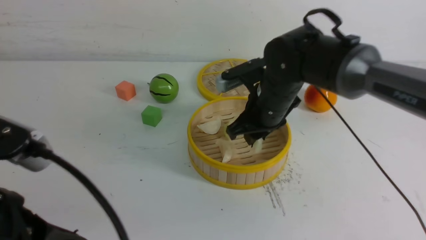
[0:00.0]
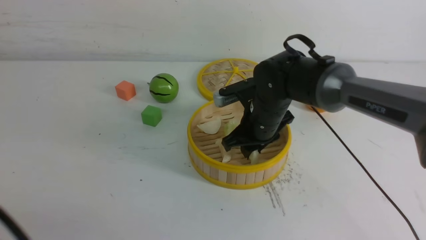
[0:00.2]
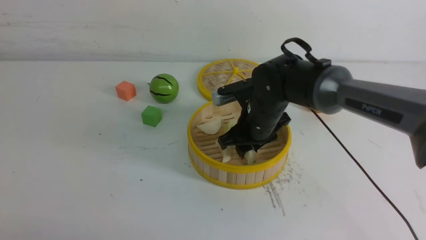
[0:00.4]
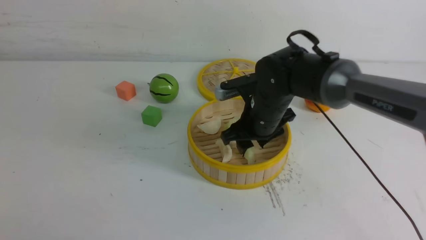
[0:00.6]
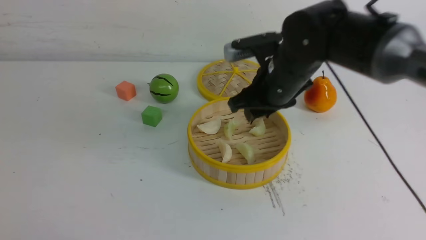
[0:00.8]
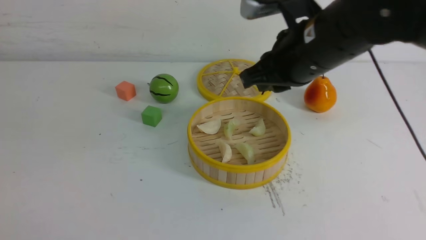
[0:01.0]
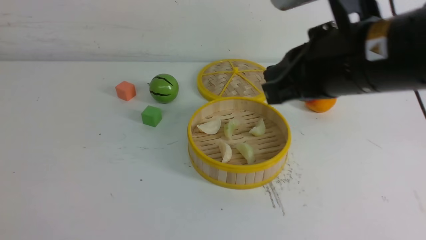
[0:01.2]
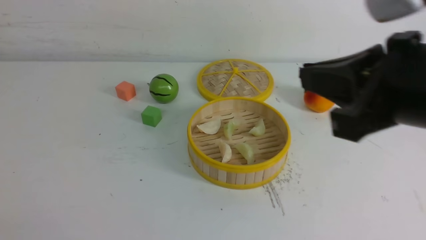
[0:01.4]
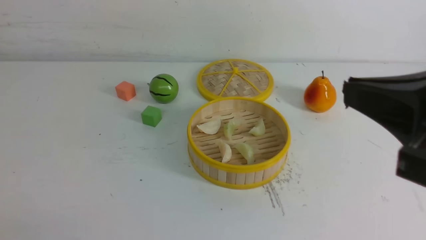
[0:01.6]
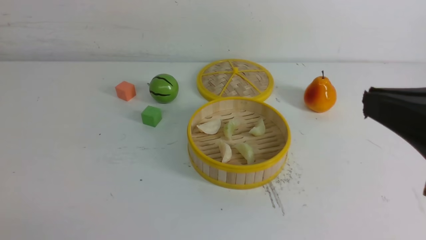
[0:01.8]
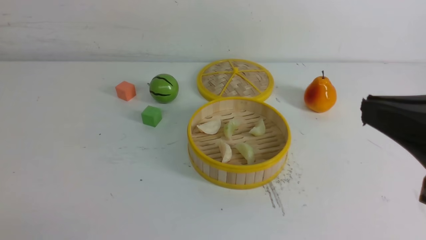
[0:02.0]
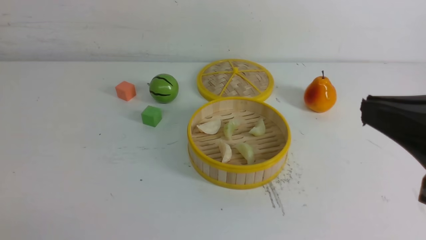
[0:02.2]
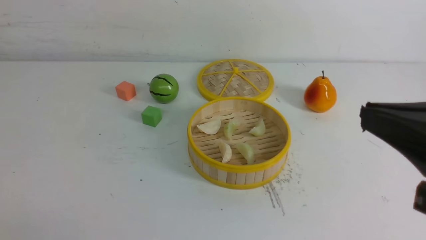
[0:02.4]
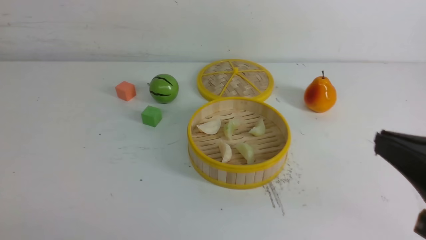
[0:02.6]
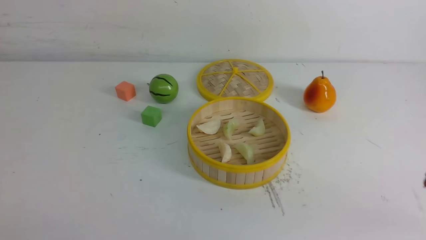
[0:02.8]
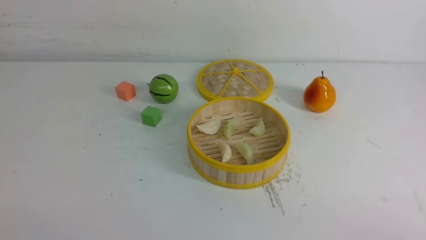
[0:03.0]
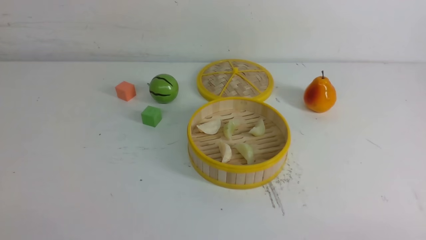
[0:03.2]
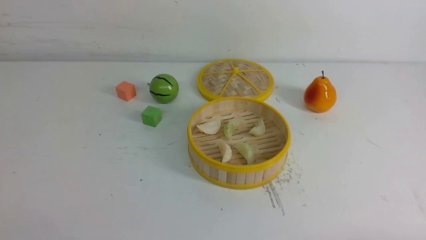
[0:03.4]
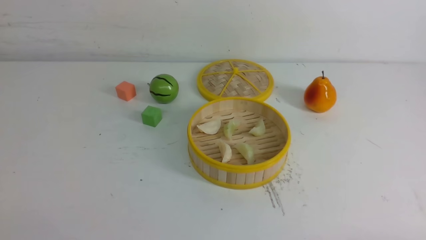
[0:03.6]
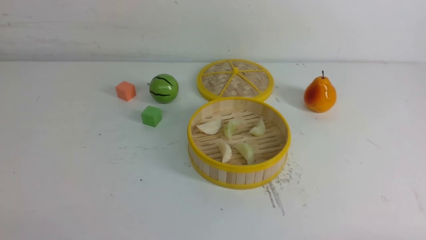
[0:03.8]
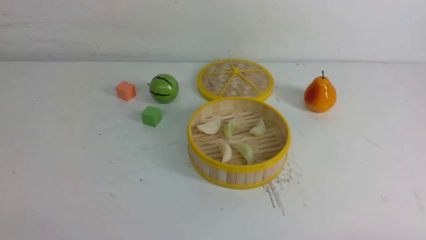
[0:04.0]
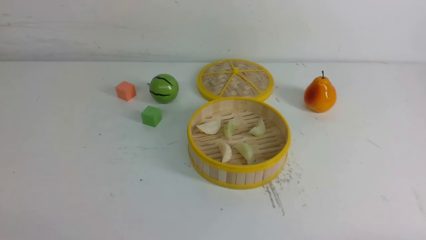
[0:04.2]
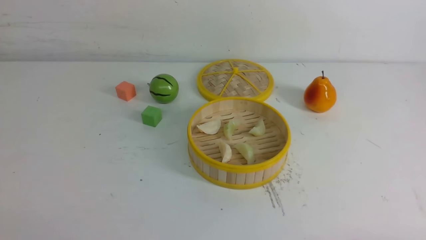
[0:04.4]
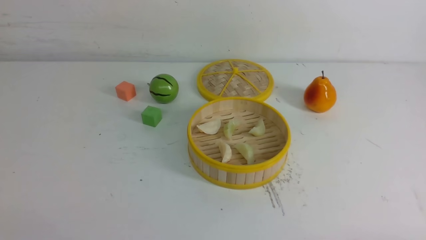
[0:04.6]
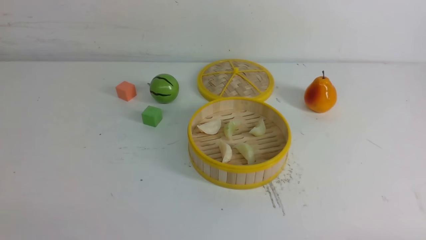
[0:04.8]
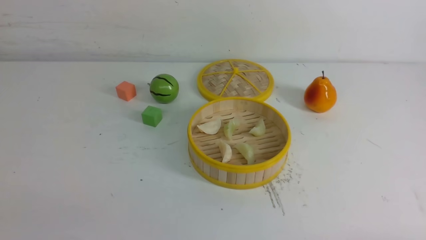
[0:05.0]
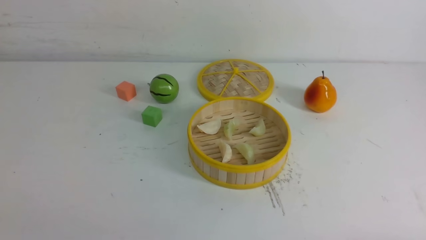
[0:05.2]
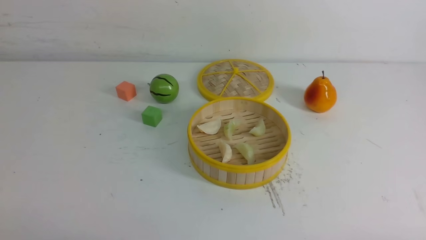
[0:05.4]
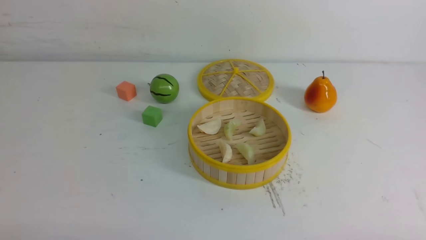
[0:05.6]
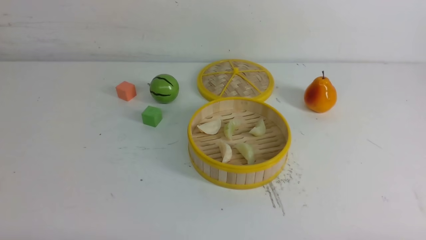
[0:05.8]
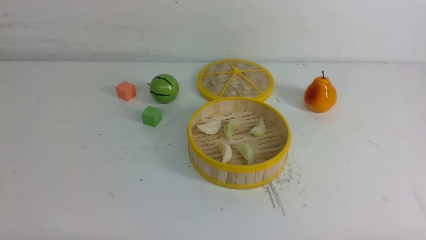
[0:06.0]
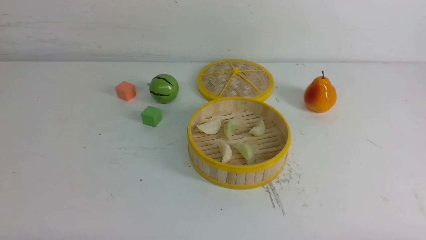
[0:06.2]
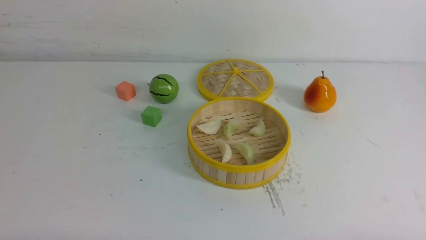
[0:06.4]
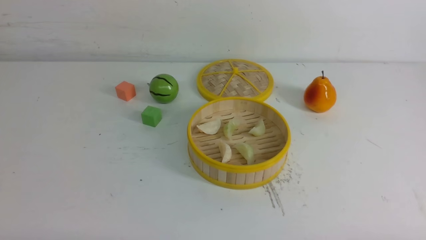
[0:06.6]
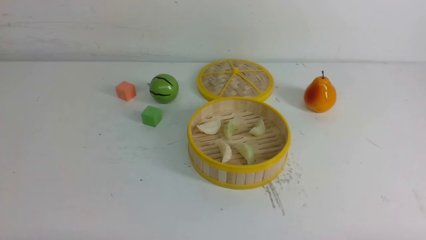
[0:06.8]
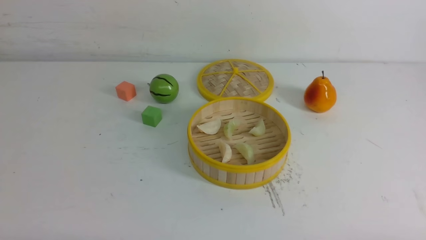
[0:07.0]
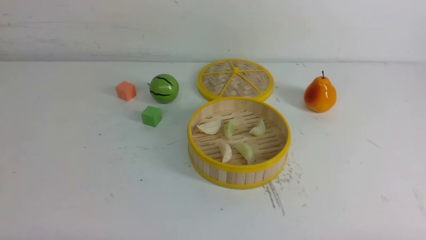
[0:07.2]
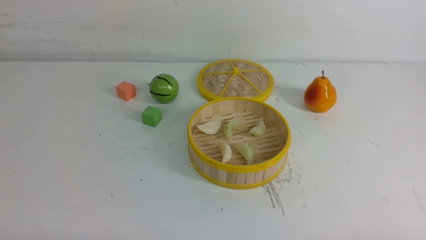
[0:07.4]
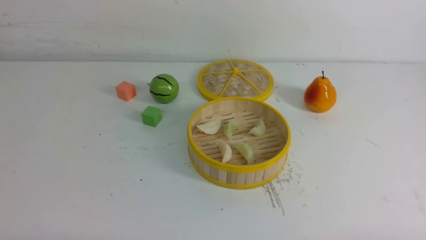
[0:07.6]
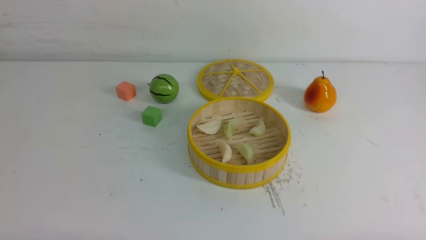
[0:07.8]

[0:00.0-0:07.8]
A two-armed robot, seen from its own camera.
Task of the whole recording: put the dumplings into the steamer on the white table.
Step, 0:00.0 to 0:00.6: use the right arm to put the dumpling into the steamer.
0:00.0 to 0:01.6: The right gripper is displaced backward, upward and to the right by some 30 cm, and closes up. Meanwhile the left gripper goes approximately 15 cm to the left and backward.
0:01.6 to 0:03.2: The right gripper is displaced downward and to the right by roughly 25 cm.
0:06.2 to 0:07.8: The two grippers keep their place.

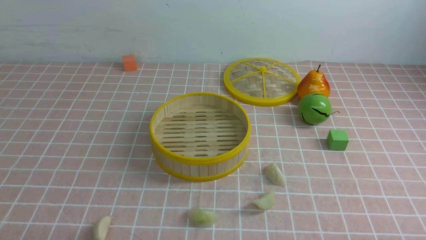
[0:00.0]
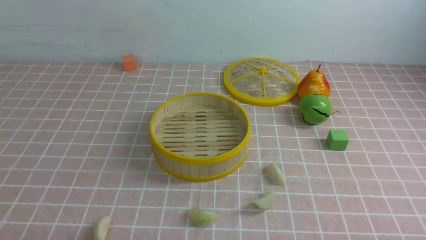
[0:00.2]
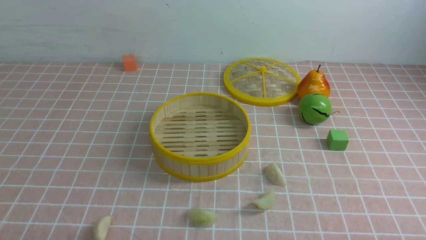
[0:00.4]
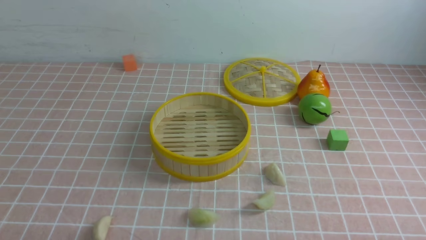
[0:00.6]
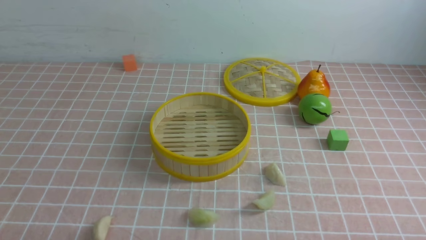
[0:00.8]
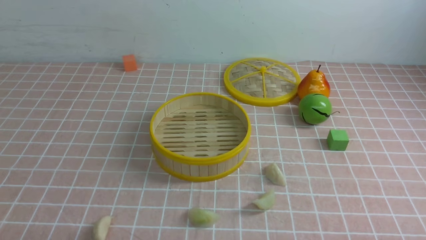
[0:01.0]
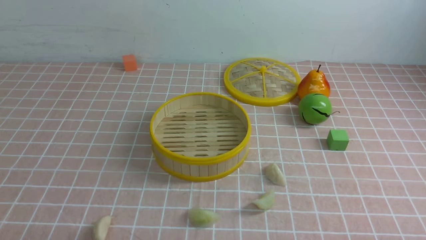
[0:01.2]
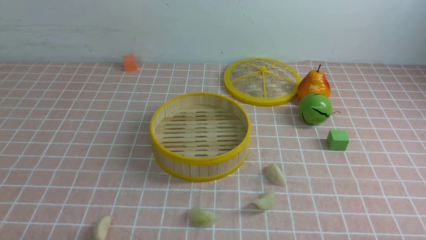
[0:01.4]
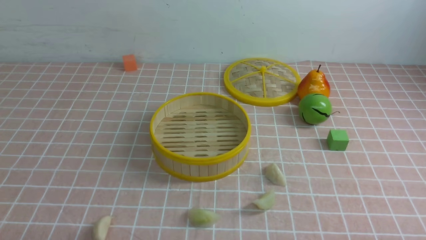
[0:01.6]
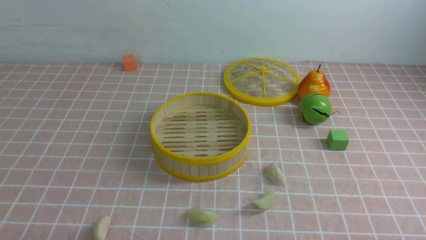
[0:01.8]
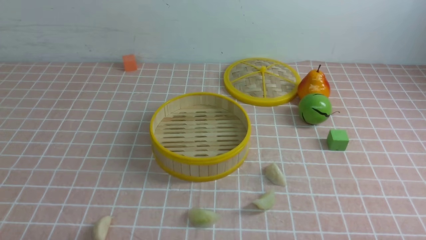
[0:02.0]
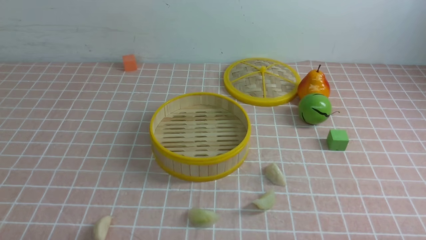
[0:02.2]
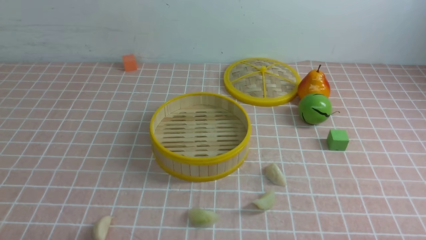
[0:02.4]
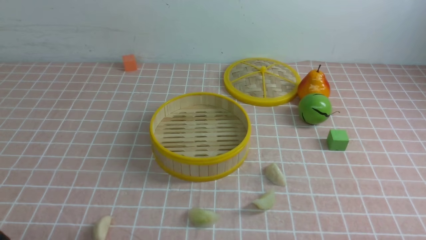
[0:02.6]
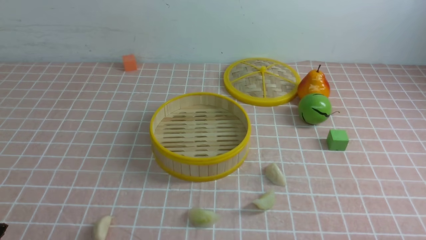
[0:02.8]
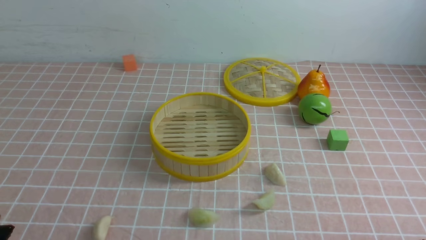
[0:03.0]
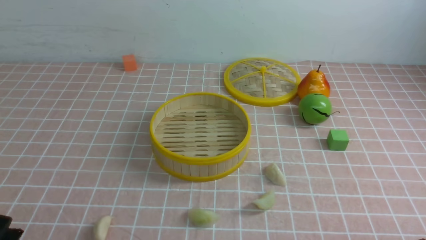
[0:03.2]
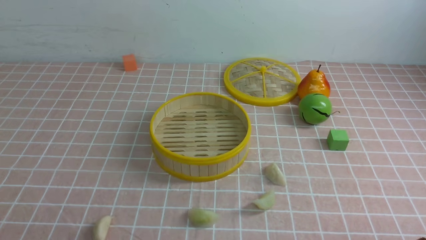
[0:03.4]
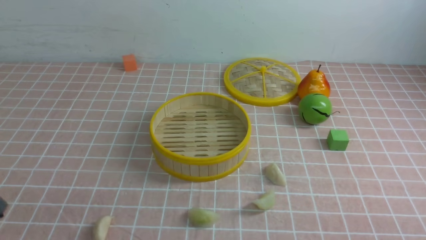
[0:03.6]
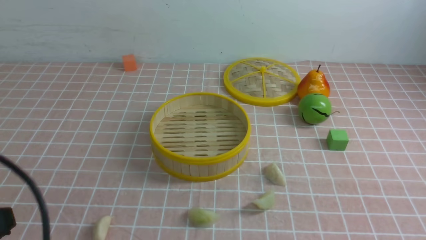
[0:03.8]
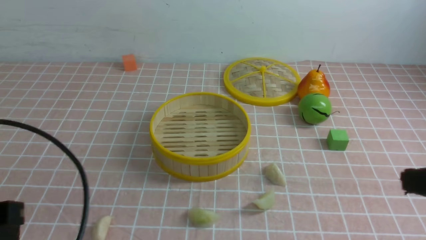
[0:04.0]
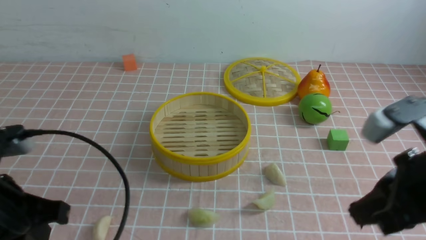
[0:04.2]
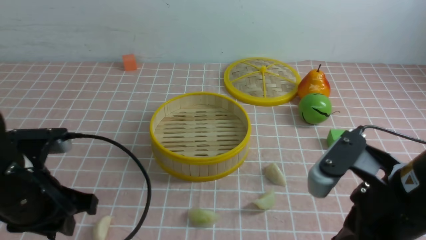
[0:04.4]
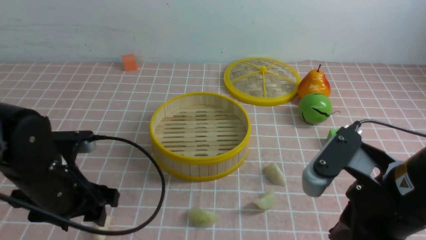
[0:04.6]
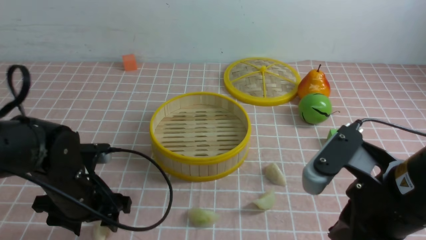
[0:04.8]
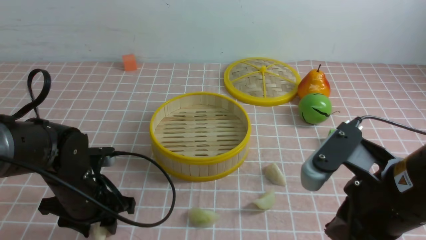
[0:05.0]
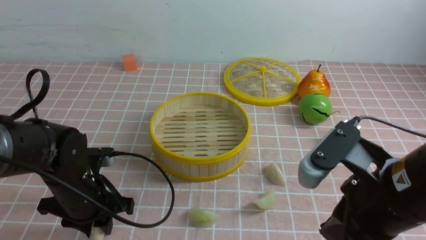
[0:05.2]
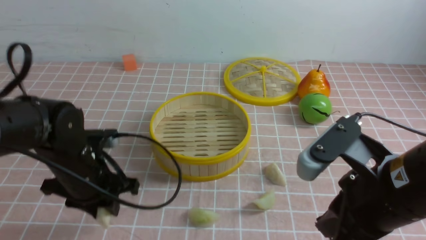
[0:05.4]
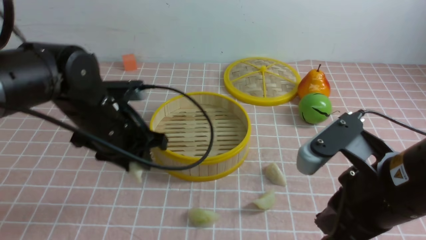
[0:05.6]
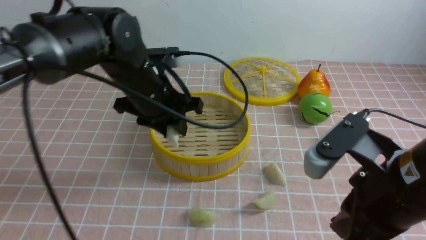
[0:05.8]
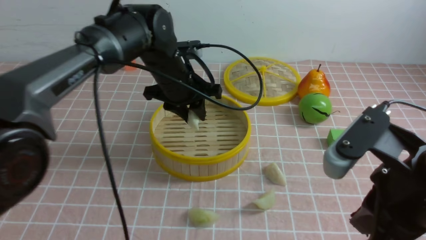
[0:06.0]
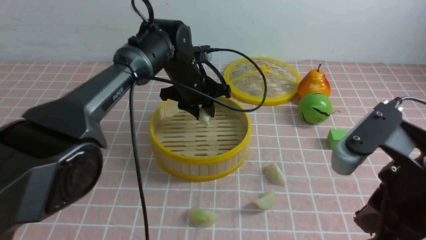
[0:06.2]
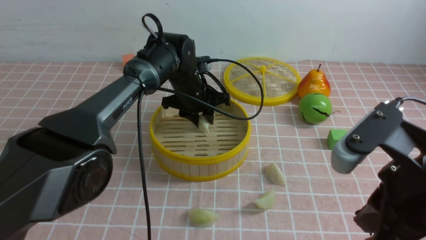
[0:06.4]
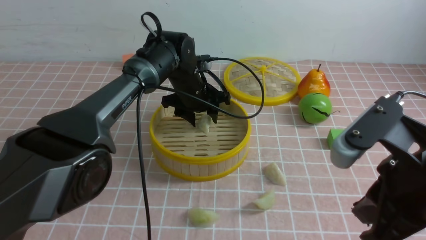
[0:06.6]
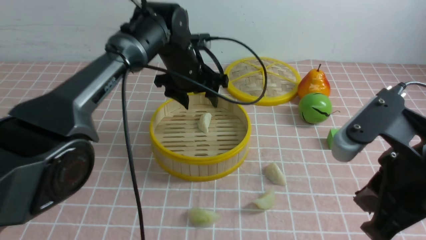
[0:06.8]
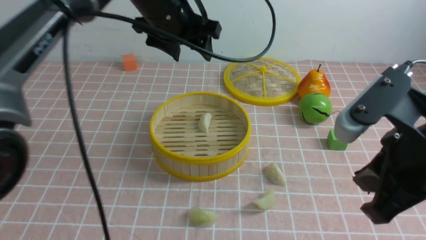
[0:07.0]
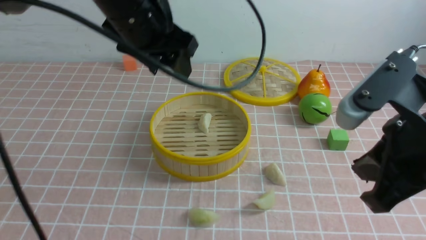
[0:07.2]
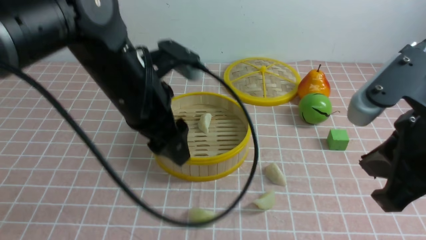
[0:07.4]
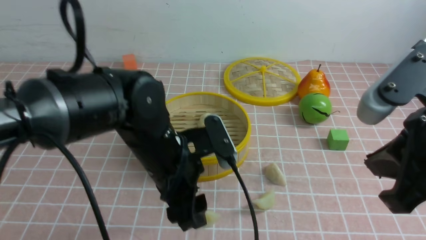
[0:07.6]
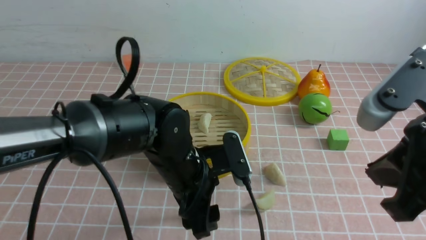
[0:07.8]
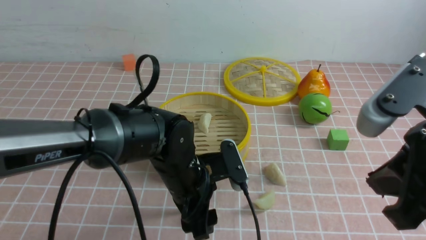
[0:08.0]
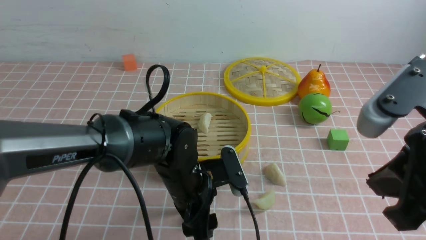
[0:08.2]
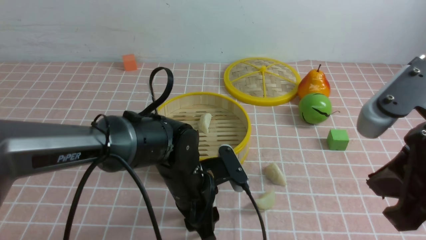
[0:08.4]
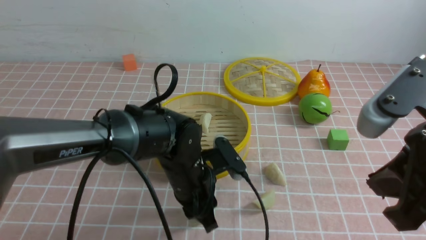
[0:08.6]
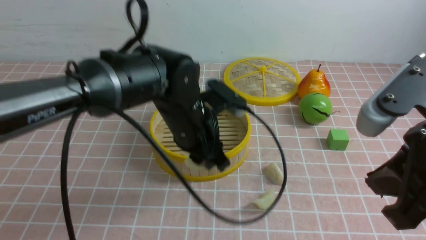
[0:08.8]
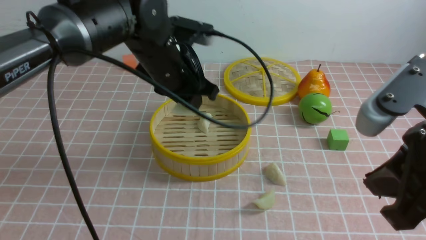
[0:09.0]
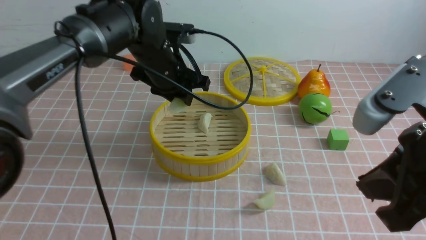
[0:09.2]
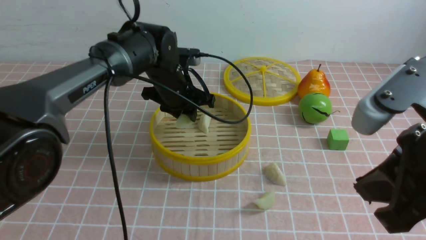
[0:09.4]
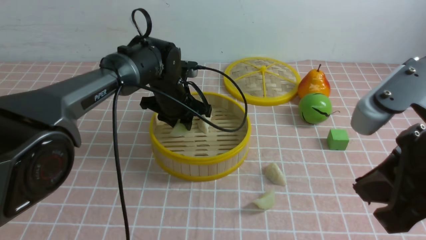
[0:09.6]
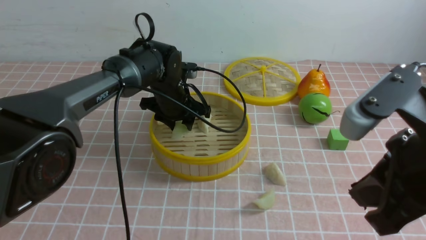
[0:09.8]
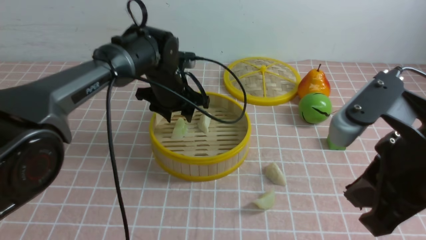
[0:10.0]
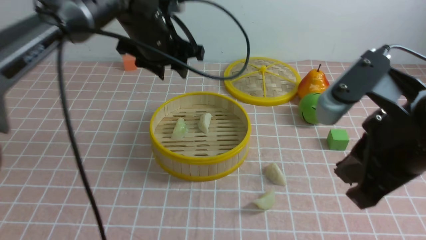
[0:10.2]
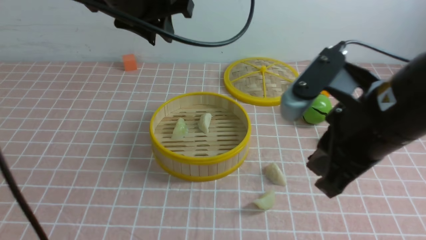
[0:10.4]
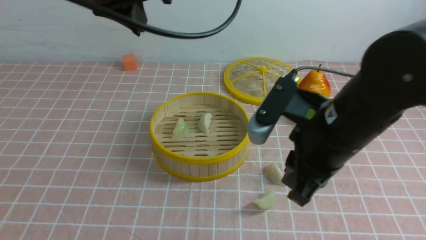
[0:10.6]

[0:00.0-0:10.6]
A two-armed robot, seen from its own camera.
Task of the whole recording: put the dumplings into the steamer on the table with the pink tablecloth.
Step, 0:00.0 to 0:05.2: use the left arm to grab a dumpling.
Step, 0:05.4 to 0:06.4: use the left arm to put the dumpling into the steamer.
Step, 0:06.6 to 0:08.4: use the left arm to grab a dumpling.
Step, 0:08.6 to 0:09.8: use the left arm to put the dumpling into the steamer.
0:03.0 to 0:04.6: The left gripper moves forward, about 20 cm, and closes and opens again; the right gripper is displaced forward, to the left and upward by approximately 20 cm, and closes.
0:04.6 to 0:06.0: The left gripper travels forward and to the right by roughly 20 cm.
0:06.0 to 0:07.6: The right gripper moves upward, some 5 cm, while the left gripper shifts about 10 cm backward, and opens up.
0:07.6 to 0:09.0: The left gripper is displaced forward by approximately 5 cm, moves approximately 10 cm downward and comes back, and closes.
0:09.0 to 0:10.6: The right gripper moves forward and to the left, about 10 cm. Meanwhile the left gripper moves upward and to the left, approximately 20 cm.
